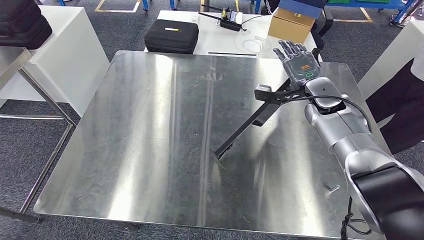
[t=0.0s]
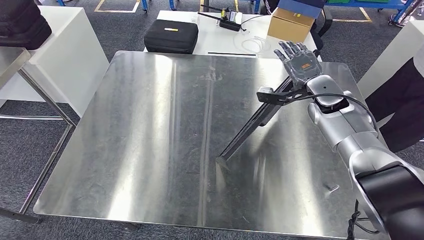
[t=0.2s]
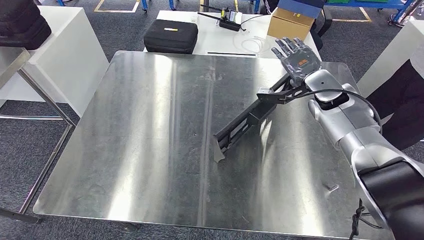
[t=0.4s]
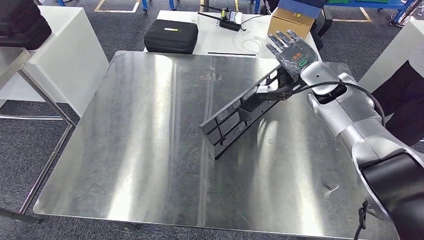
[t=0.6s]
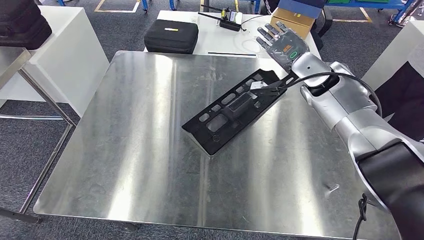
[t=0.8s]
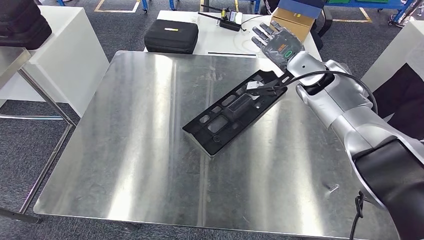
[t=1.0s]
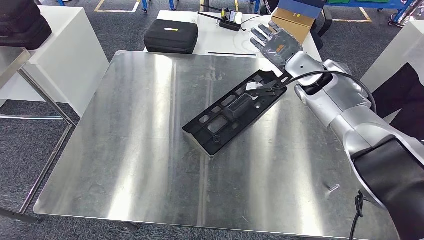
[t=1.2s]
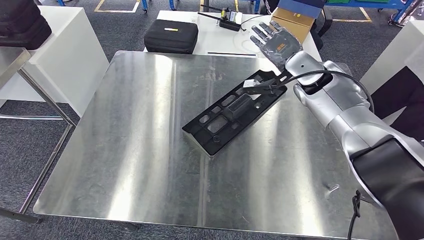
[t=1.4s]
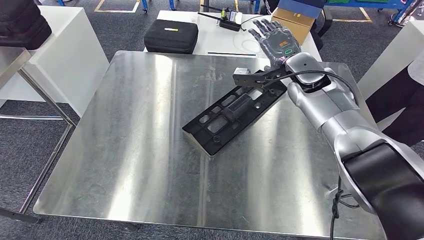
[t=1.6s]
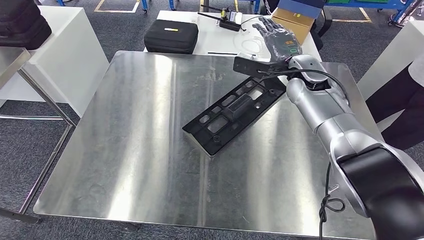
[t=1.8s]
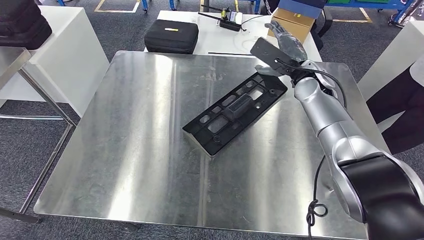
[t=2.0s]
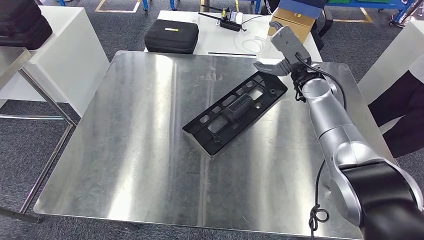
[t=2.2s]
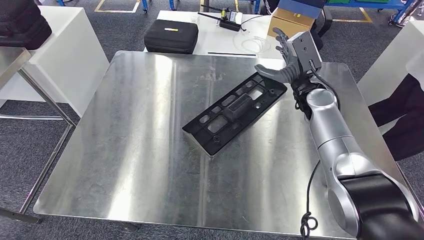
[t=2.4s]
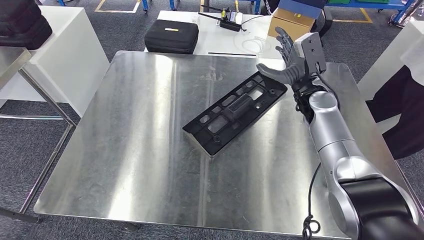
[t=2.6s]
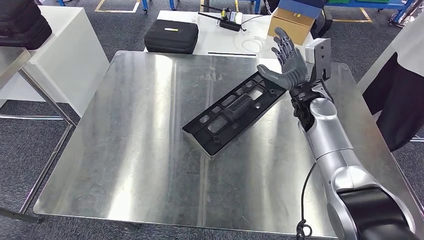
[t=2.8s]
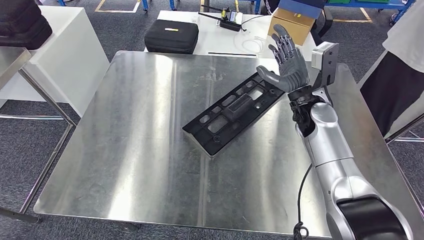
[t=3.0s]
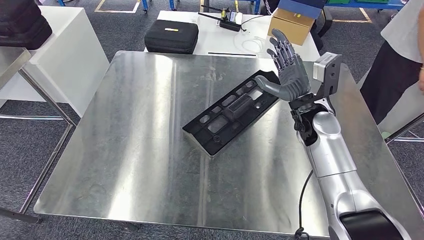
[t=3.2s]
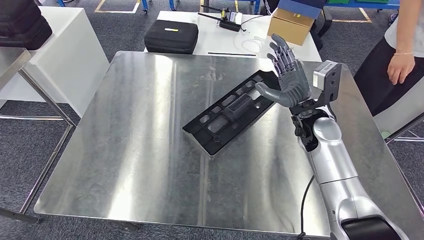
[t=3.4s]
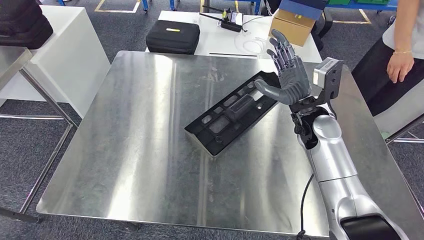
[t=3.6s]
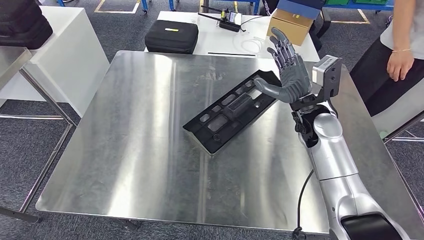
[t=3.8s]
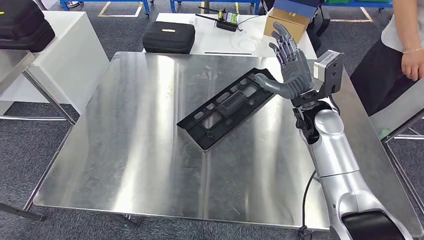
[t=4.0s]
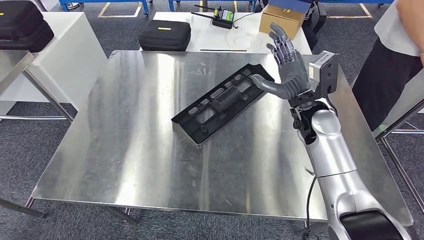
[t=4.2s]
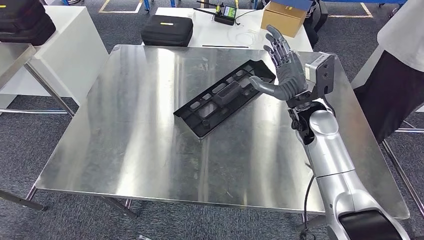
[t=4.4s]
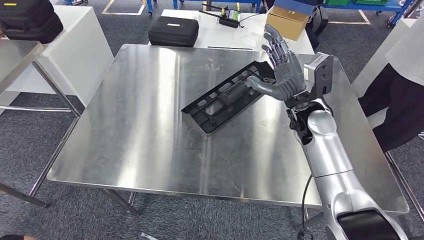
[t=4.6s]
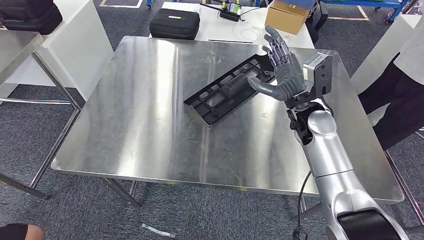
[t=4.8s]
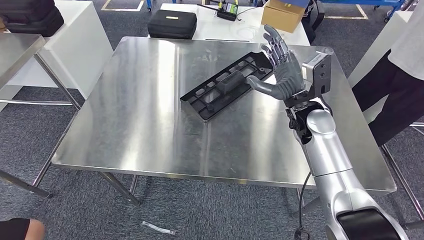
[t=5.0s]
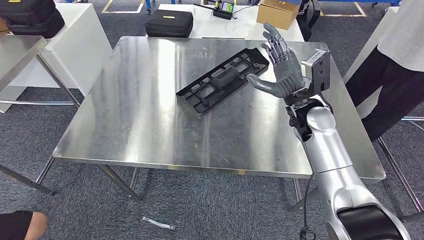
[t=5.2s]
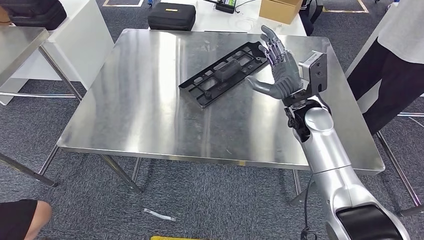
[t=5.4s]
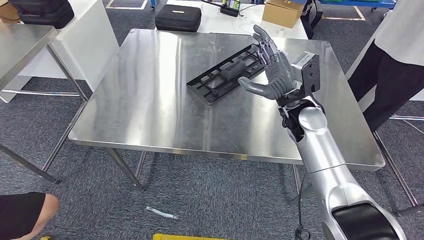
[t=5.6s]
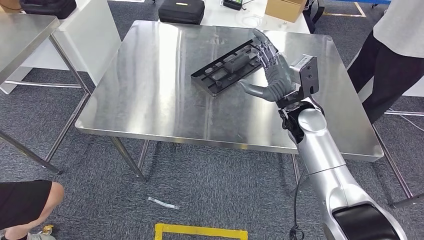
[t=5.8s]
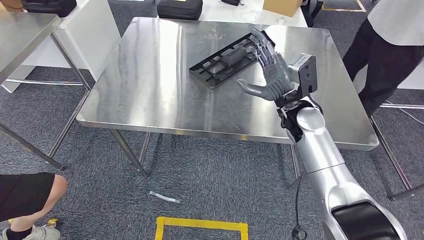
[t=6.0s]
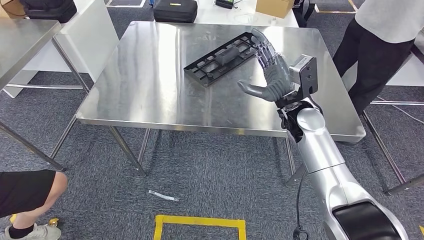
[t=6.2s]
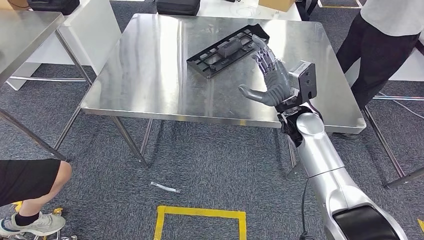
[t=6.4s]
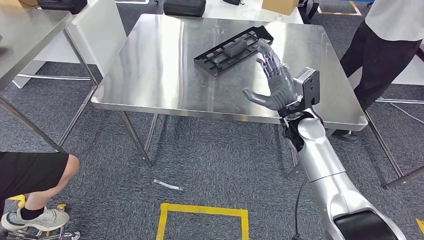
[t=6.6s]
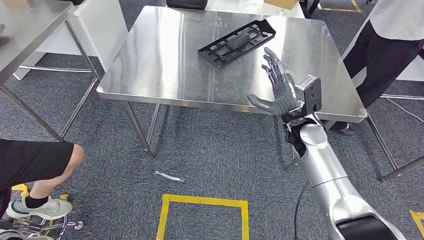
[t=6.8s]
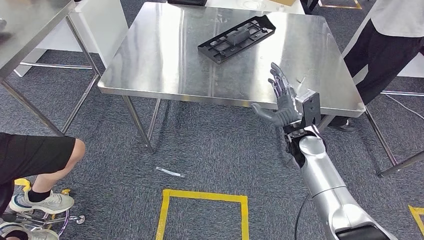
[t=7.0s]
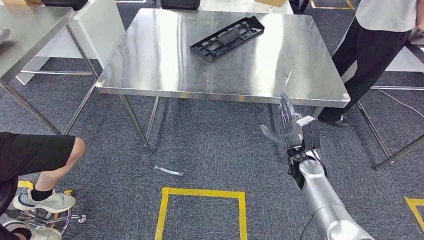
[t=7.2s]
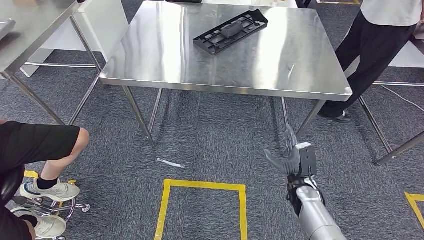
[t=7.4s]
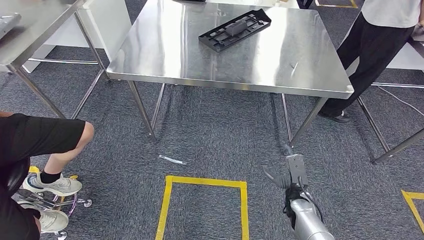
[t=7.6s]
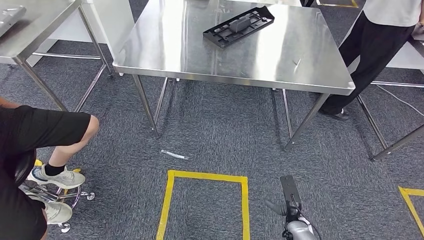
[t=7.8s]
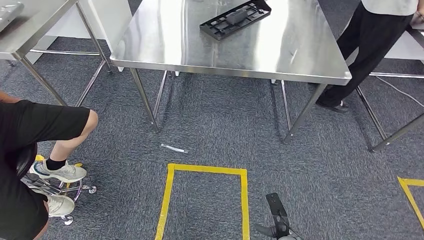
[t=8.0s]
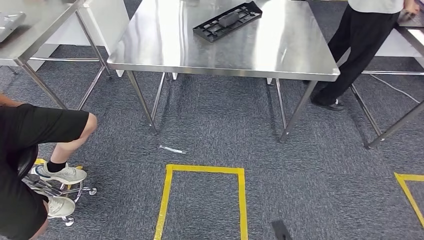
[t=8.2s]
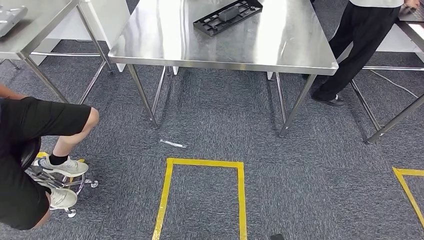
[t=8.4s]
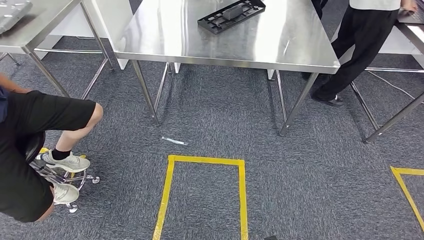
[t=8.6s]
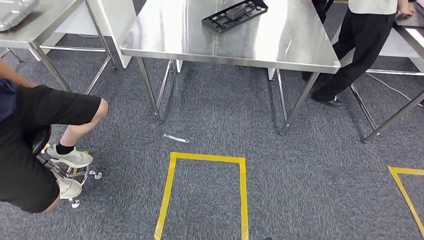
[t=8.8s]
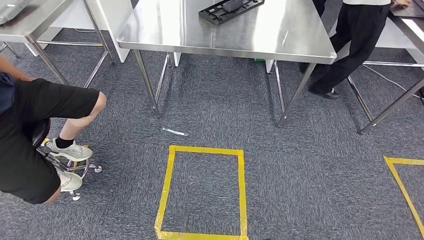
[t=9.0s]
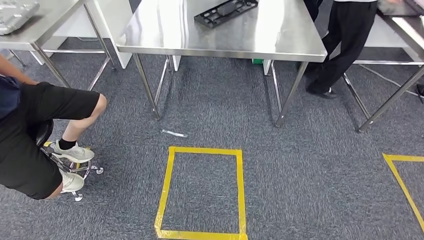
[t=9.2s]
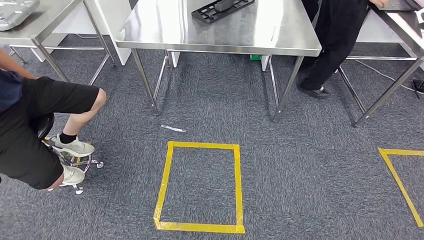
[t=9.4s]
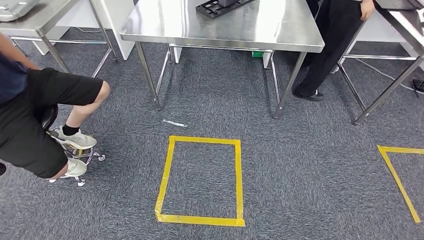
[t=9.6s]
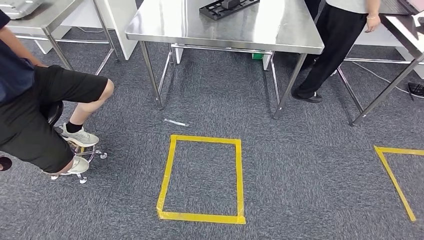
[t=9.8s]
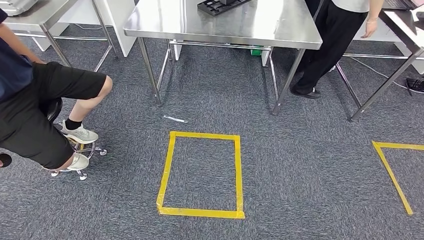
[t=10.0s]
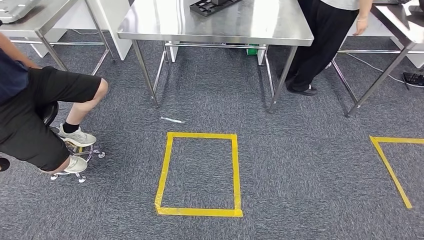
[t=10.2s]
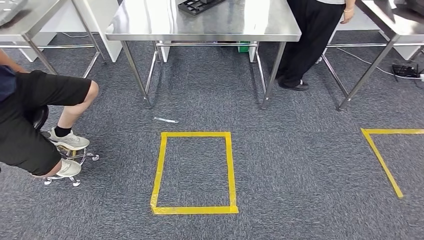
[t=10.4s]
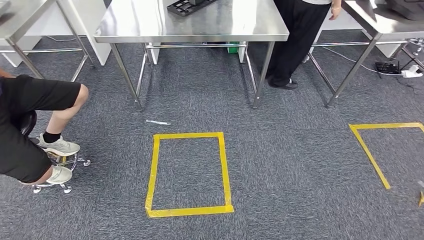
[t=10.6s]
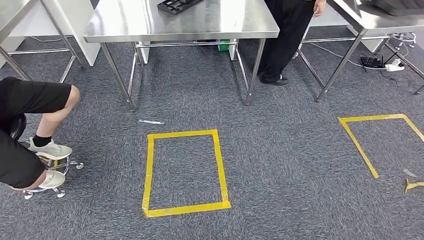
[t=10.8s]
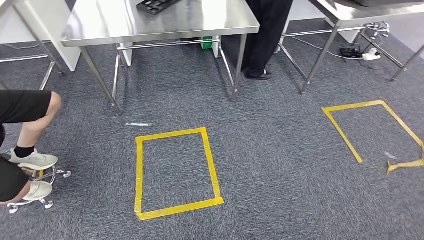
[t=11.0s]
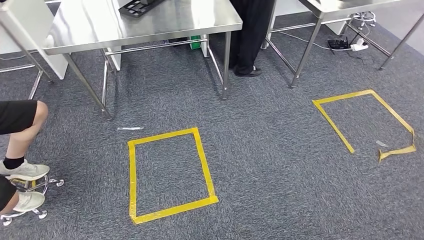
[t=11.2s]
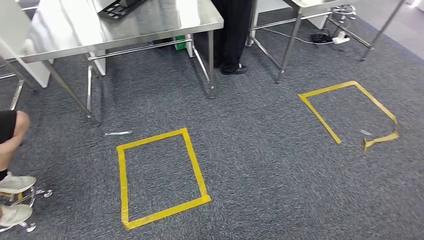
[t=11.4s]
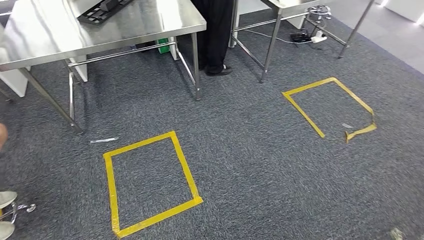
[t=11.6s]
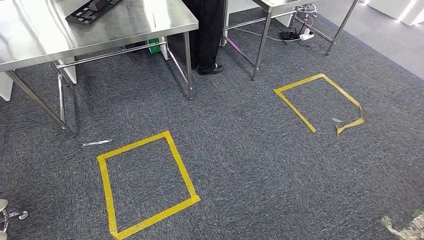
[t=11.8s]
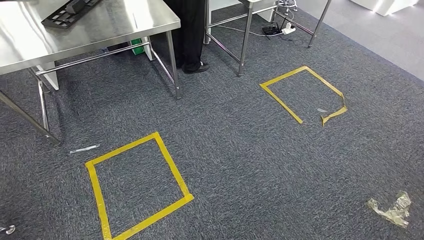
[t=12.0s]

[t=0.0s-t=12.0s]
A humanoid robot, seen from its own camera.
t=0.0s to t=1.6s: The right hand goes some 10 cm upward and to the left.
t=1.6s to t=3.0s: The right hand moves downward and backward, approximately 10 cm.

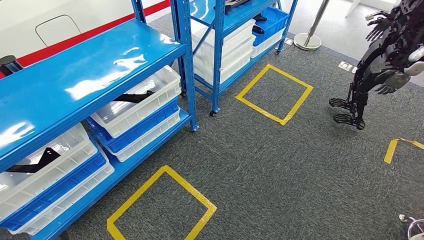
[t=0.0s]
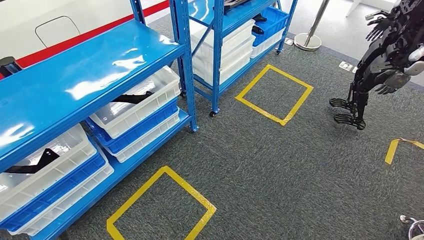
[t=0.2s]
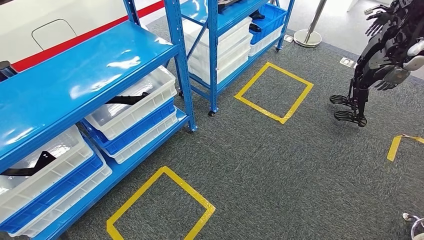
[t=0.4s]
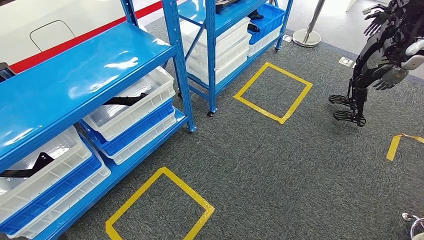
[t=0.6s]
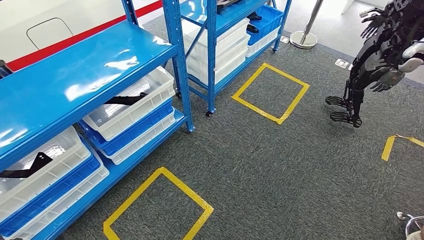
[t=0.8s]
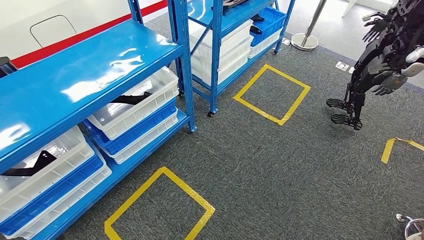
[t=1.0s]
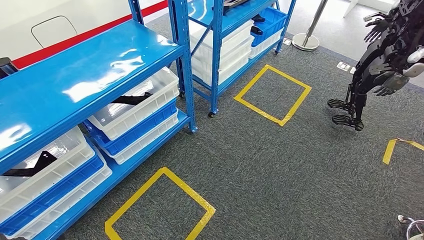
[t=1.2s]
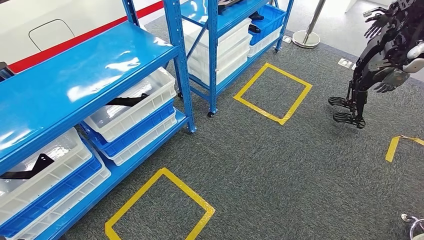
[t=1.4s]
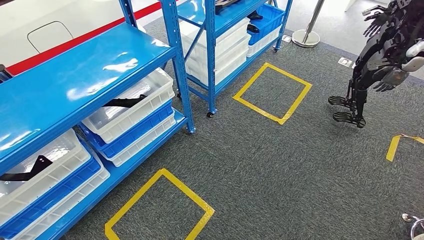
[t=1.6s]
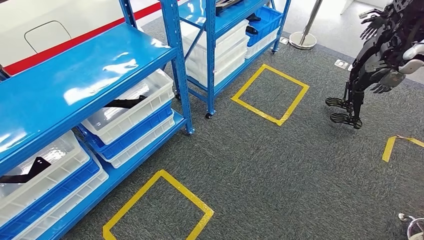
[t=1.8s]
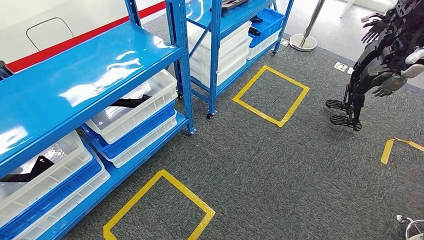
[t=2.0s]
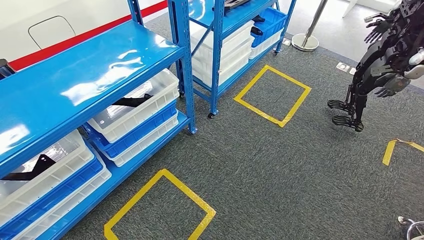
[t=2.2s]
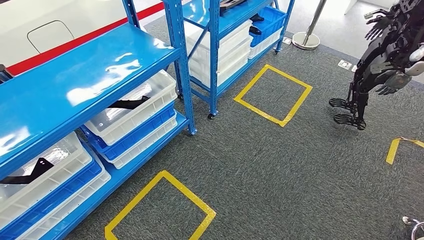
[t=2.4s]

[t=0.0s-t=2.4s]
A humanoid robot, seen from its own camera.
Step, t=0.0s to t=2.4s: Move to the initial position of the shelf.
t=0.0s to t=1.2s: Both hands stay put.
